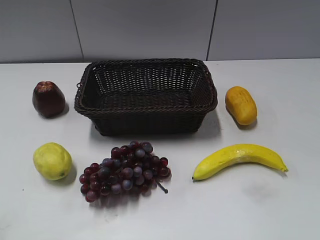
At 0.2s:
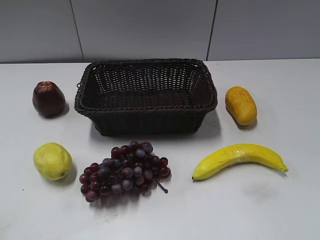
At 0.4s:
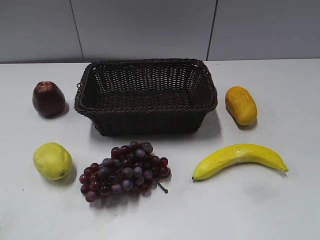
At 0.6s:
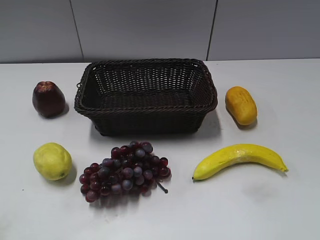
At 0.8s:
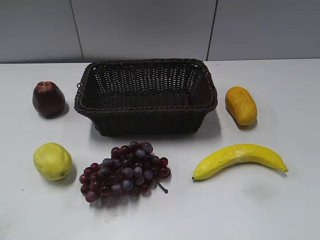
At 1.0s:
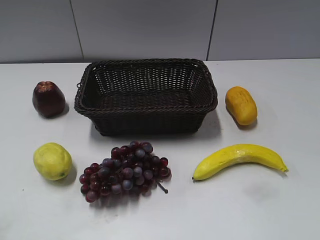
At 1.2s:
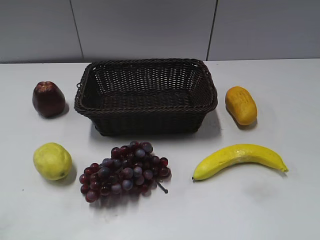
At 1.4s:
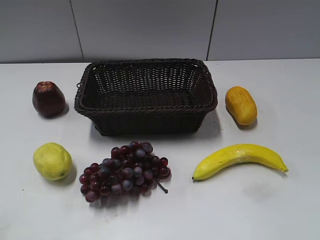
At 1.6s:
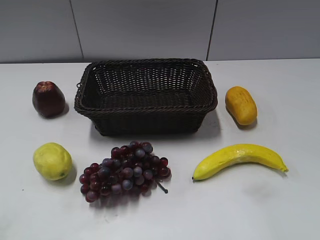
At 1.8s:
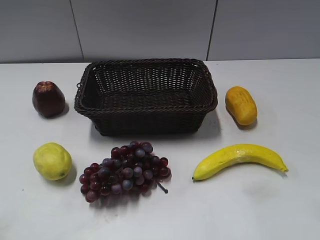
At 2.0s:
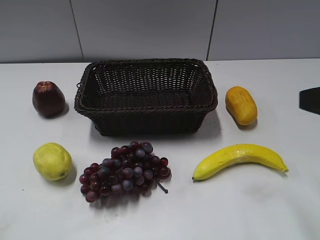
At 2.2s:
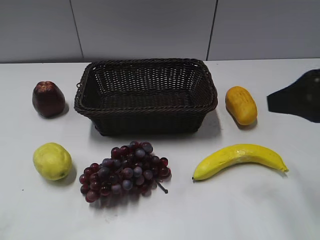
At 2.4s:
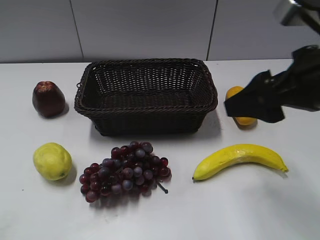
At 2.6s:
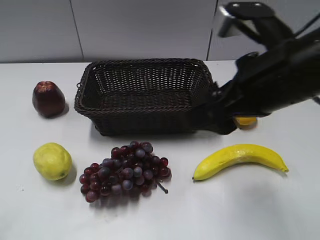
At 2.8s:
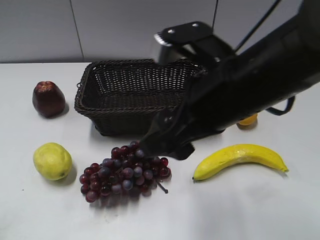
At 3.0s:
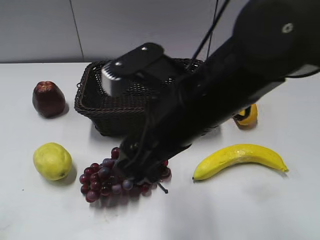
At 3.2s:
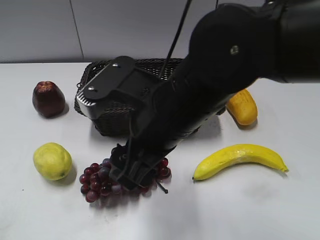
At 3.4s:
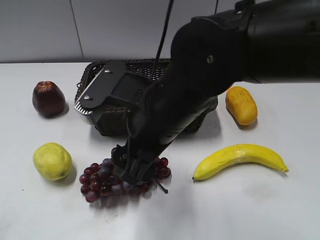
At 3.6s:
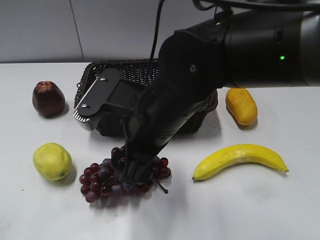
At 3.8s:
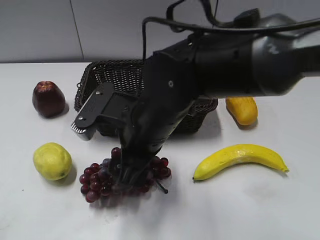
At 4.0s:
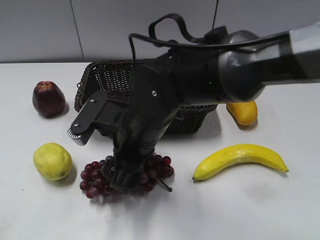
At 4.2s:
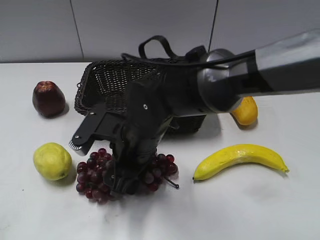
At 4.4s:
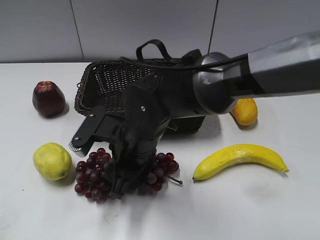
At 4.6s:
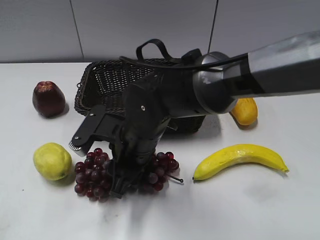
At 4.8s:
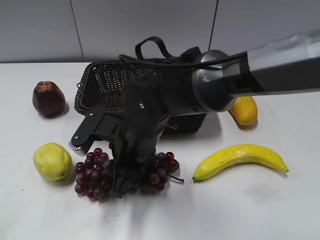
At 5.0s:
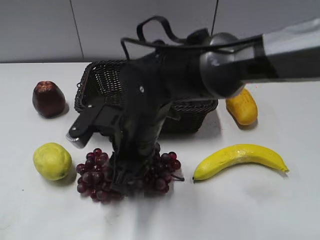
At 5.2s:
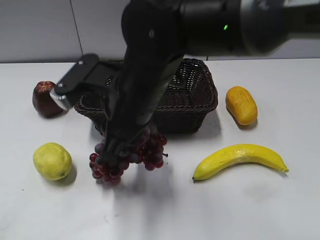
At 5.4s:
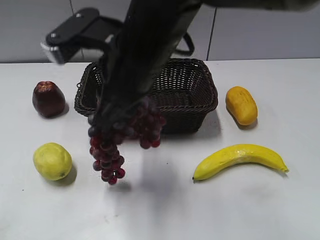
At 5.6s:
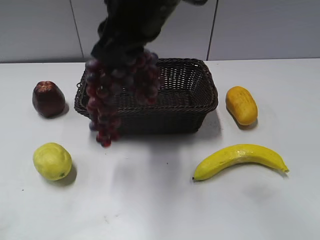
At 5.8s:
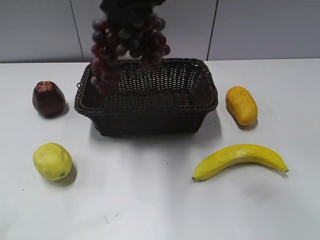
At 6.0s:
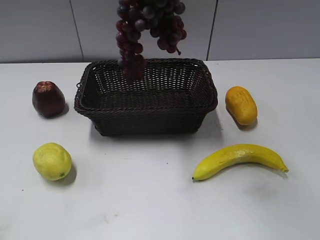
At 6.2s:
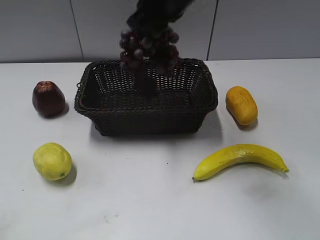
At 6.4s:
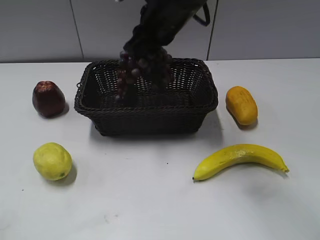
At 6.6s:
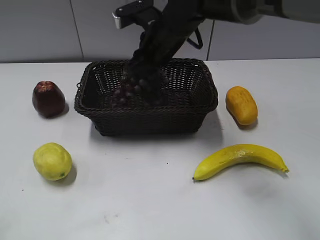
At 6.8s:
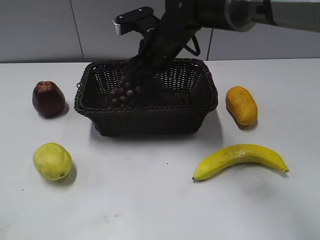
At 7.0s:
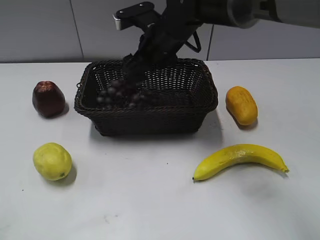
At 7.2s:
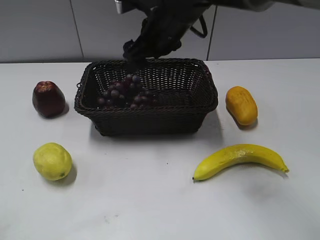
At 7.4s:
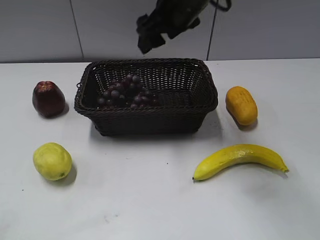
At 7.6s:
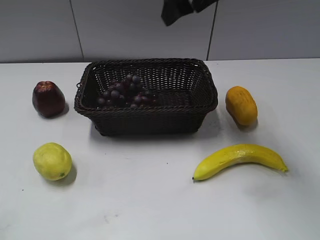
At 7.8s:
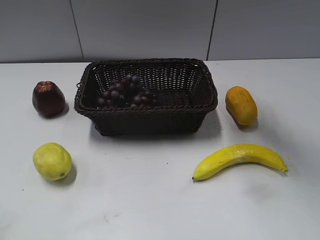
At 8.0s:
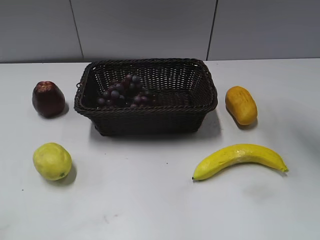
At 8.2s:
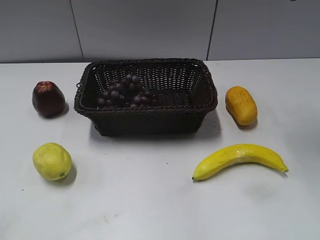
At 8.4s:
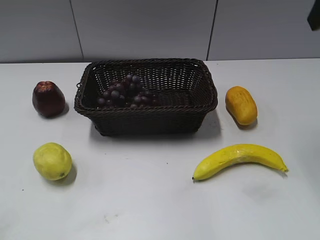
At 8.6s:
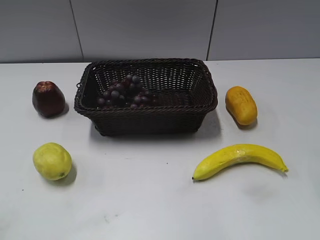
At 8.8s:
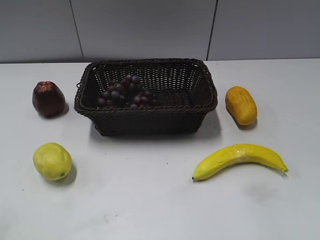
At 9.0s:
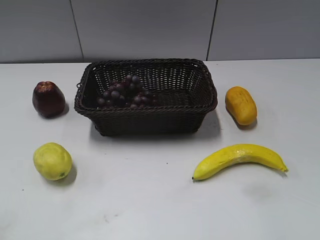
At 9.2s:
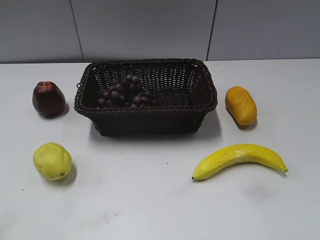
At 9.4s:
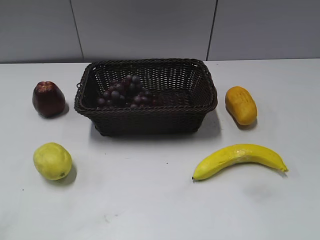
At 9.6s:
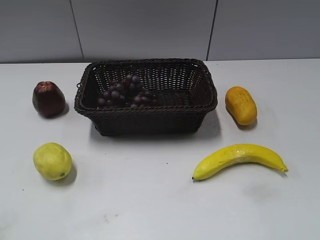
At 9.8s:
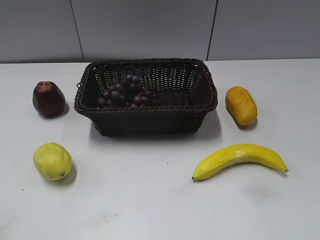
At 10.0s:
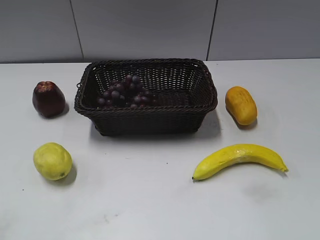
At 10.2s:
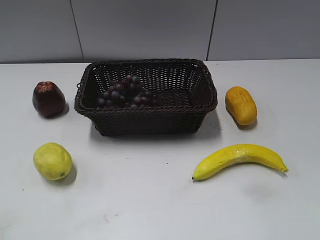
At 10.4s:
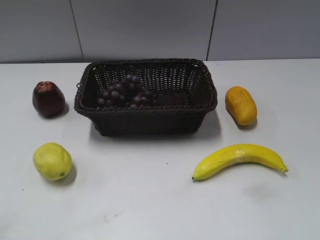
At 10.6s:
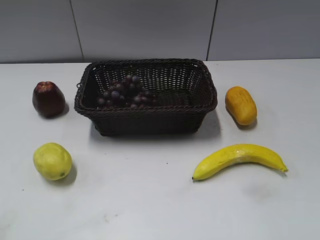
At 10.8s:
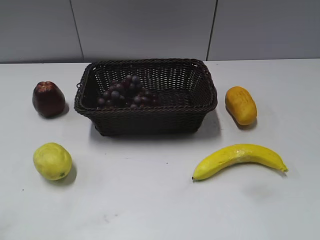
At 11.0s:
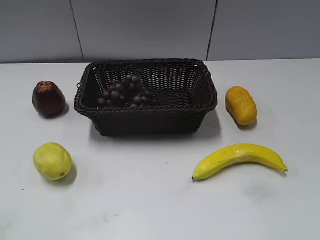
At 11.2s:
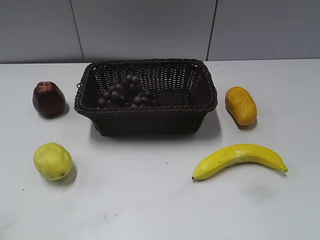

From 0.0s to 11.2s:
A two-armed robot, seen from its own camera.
Step, from 2.0s to 4.4s: Grasp the grape with right gripper.
Step, from 4.6s to 7.0s: Place the grape in the basket with right gripper.
From 1.6s to 3.2s: The right gripper moves to the left and forward, approximately 30 cm.
From 3.2s to 4.8s: The right gripper shifts approximately 10 cm downward, and closes its fingers.
From 4.8s to 6.4s: The right gripper shifts about 20 cm forward and upward, and closes.
From 6.4s to 8.0s: The right gripper is displaced to the right and upward by approximately 25 cm, and opens its fingers.
From 8.0s to 9.6s: The right gripper heads backward, covering about 30 cm.
